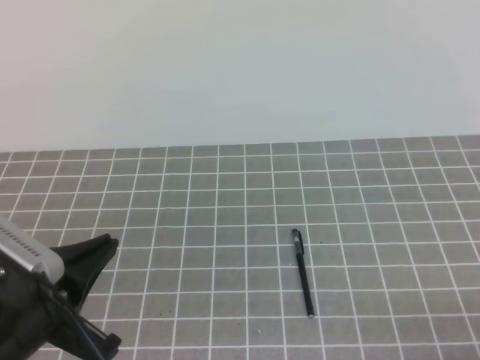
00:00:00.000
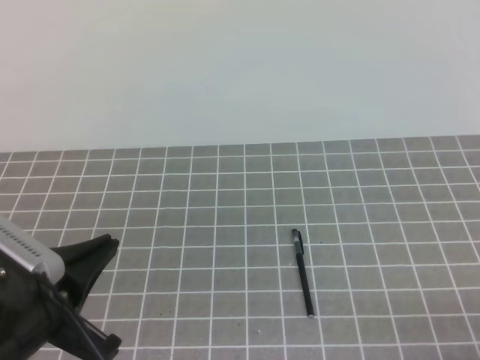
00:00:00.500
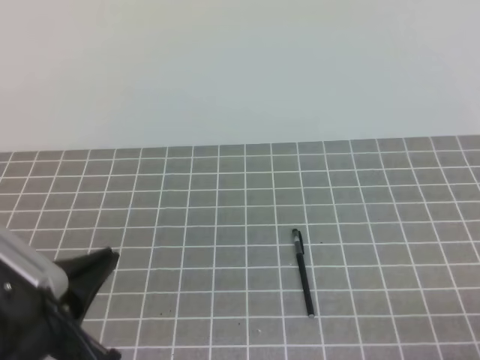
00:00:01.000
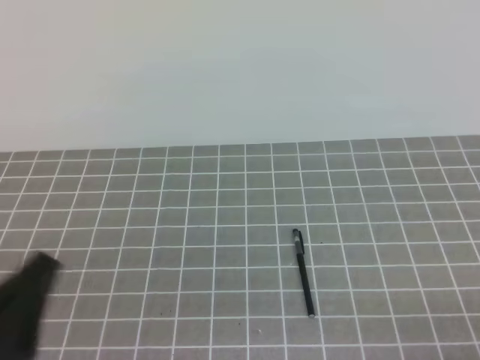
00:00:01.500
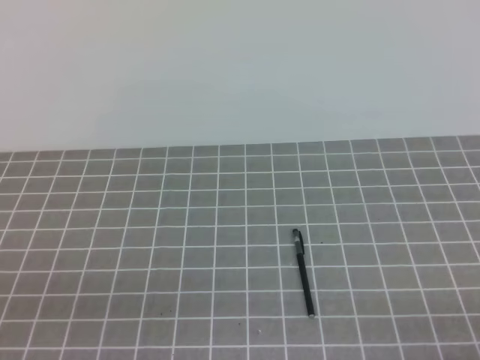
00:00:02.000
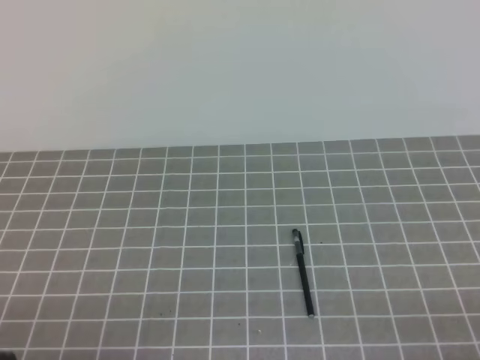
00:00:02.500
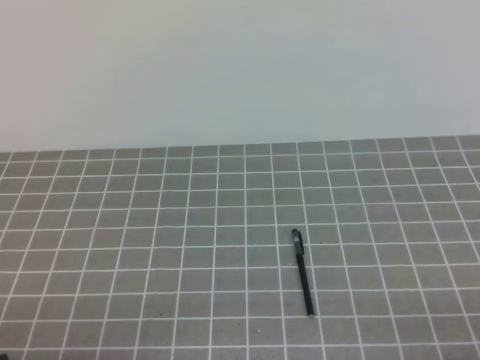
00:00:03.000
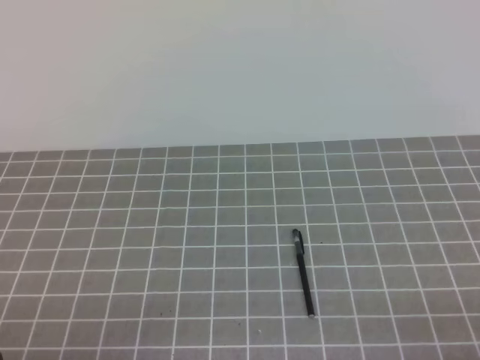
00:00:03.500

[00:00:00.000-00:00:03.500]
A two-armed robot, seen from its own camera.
Task of the whole recording: on the grey tablecloth, hold the pen cap in one hand and the pen in the other, then cover the pen cap.
Step, 00:00:00.000 to 00:00:03.500: Put the cap on the pen.
00:00:00.000 to 00:00:02.000: The left gripper shifts some 10 cm to the left and backward.
